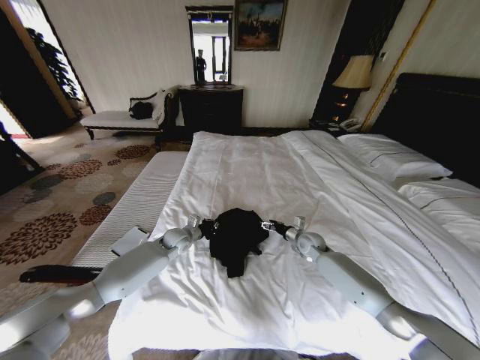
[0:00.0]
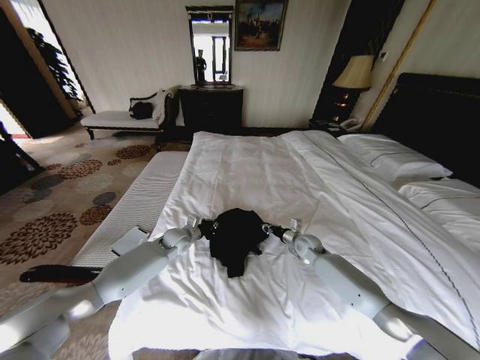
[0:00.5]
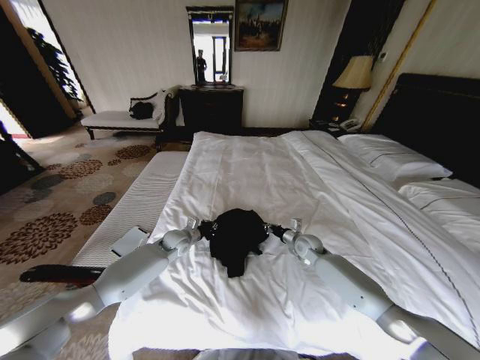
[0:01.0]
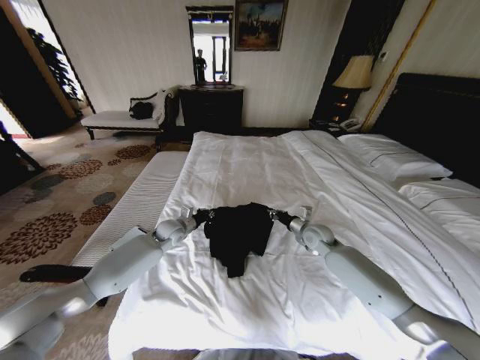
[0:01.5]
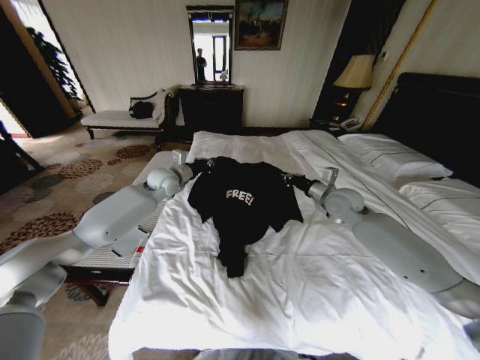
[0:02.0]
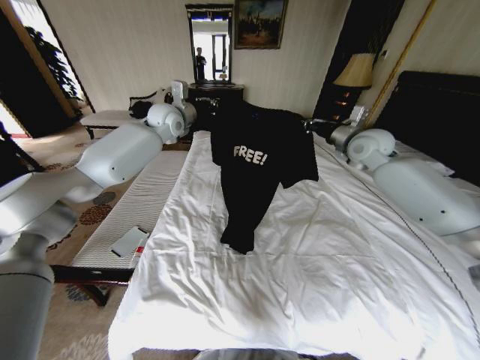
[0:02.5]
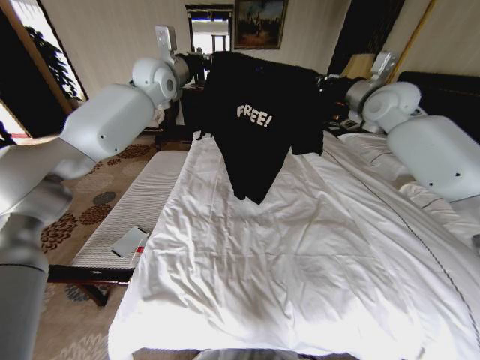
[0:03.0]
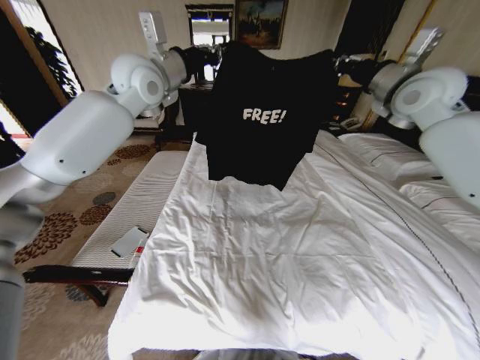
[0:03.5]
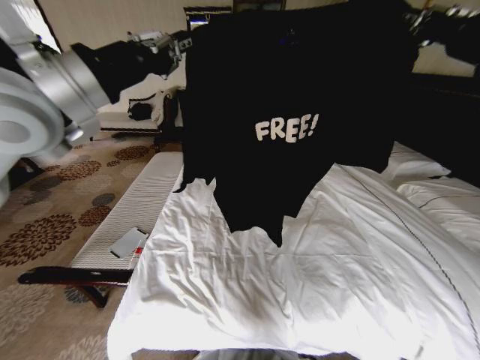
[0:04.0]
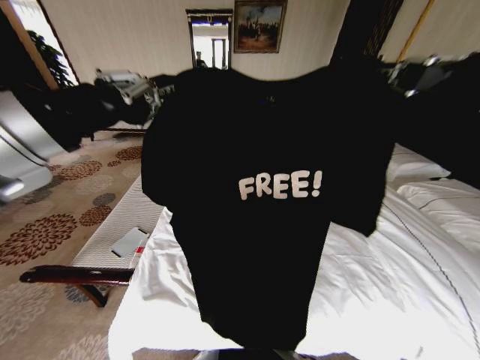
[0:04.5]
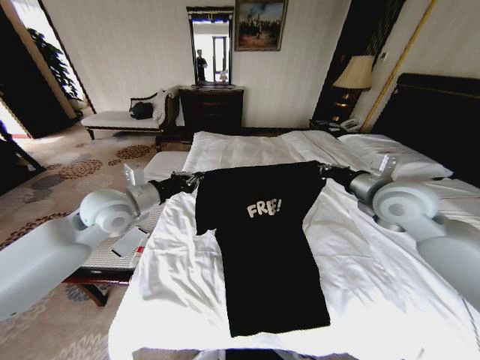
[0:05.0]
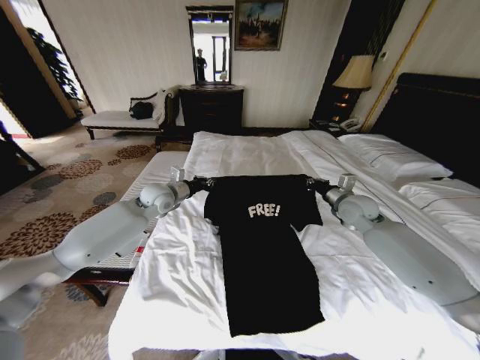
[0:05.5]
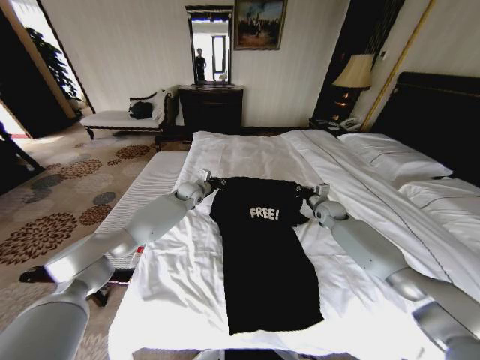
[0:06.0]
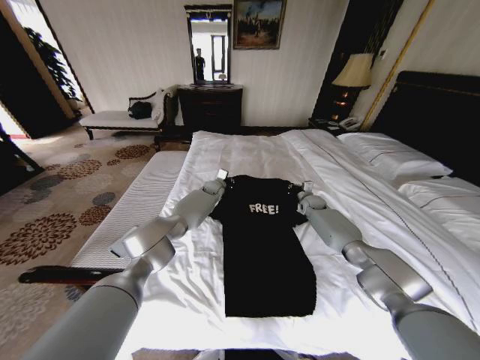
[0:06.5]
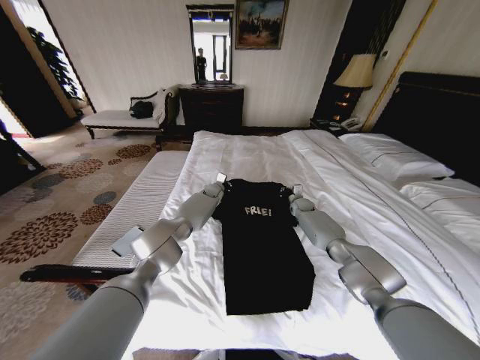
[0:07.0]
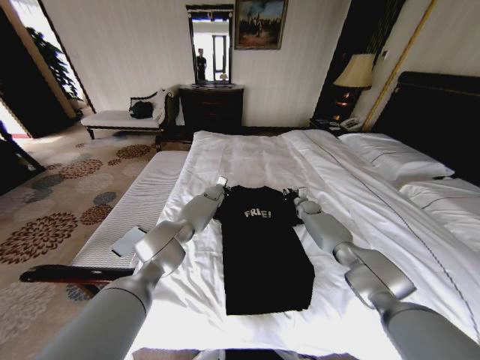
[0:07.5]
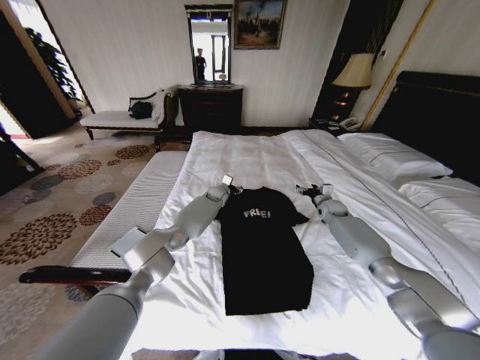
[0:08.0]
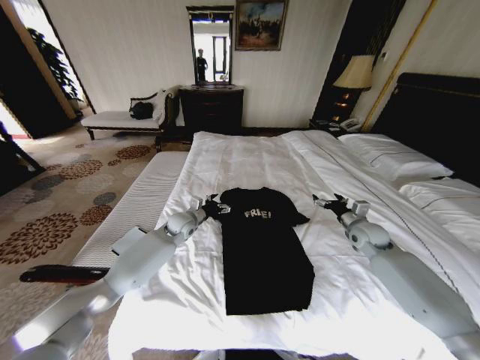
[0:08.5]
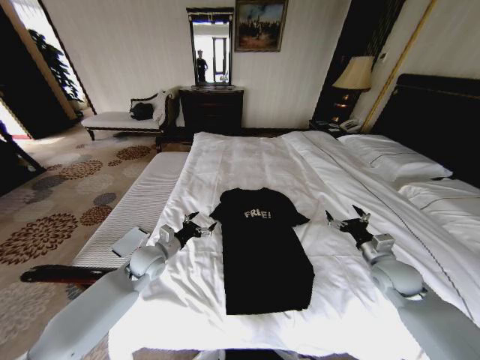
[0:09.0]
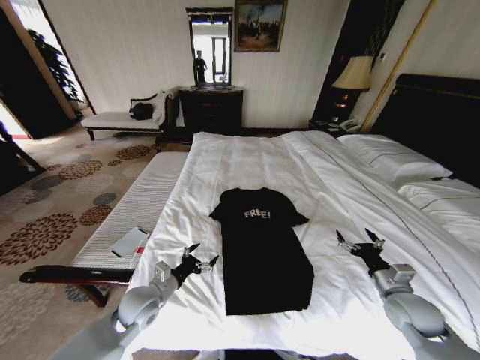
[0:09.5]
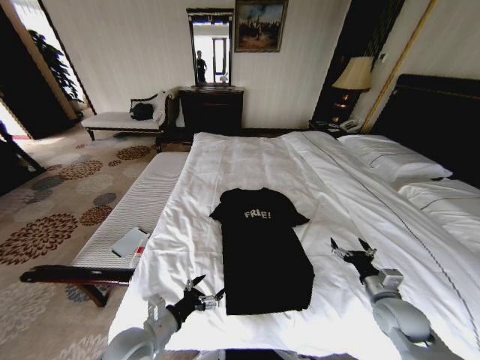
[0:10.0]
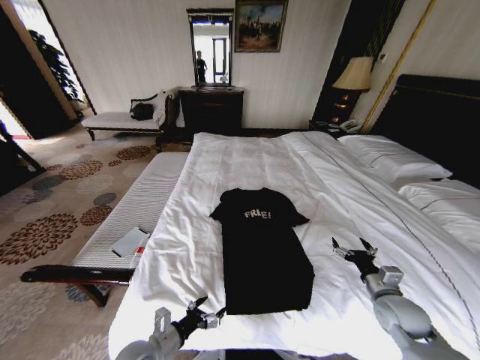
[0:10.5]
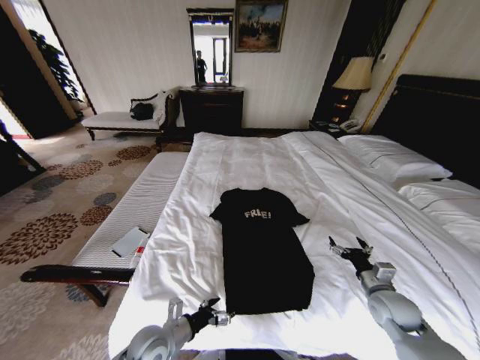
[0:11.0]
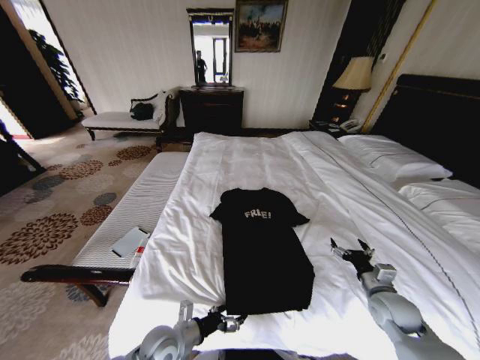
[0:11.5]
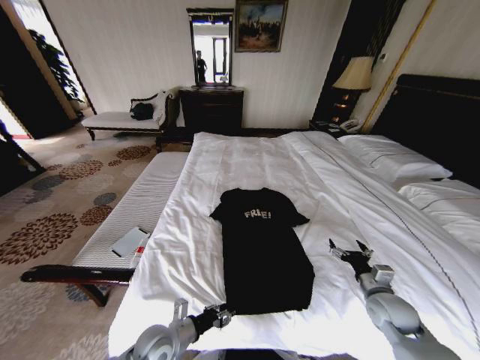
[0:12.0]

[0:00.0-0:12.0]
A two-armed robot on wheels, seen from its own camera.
Task of the whole recording: Fold the clothes on the bed.
0:00.0 to 0:02.0: The left gripper goes approximately 20 cm upward and forward. Meanwhile the right gripper travels upward by about 20 cm, and closes.
0:02.0 to 0:04.0: The grippers both shift upward and backward by about 35 cm.
0:04.0 to 0:06.0: Both grippers travel together downward and forward, roughly 40 cm.
0:06.0 to 0:08.0: The left gripper moves to the right and downward, some 10 cm, and opens up, while the right gripper opens up.
0:08.0 to 0:10.0: Both grippers travel together backward, approximately 40 cm.
0:10.0 to 0:12.0: The left gripper heads downward, covering roughly 5 cm, and closes up.

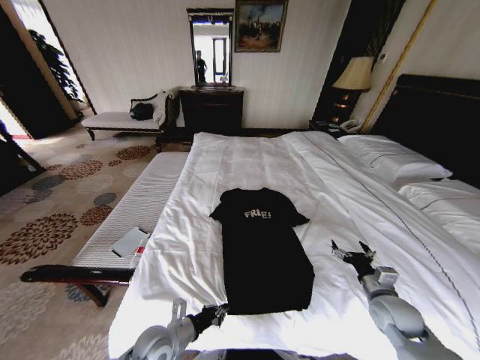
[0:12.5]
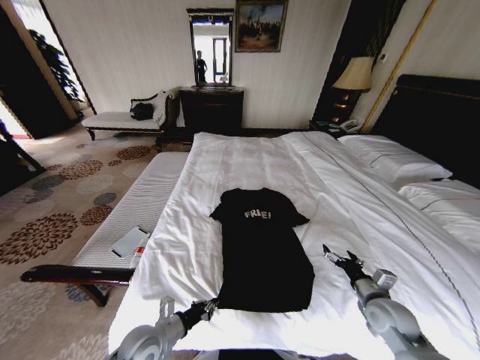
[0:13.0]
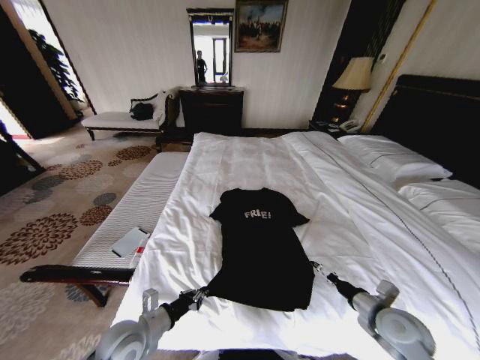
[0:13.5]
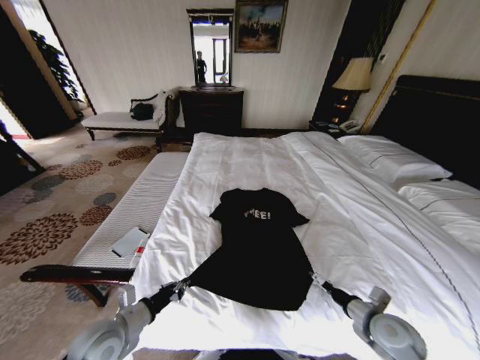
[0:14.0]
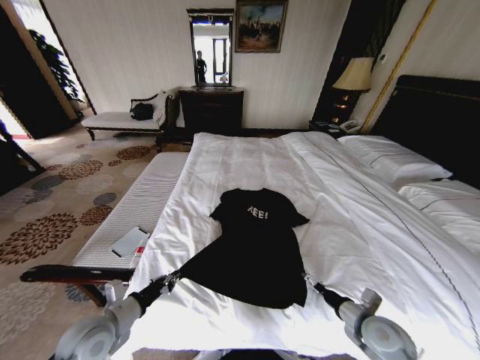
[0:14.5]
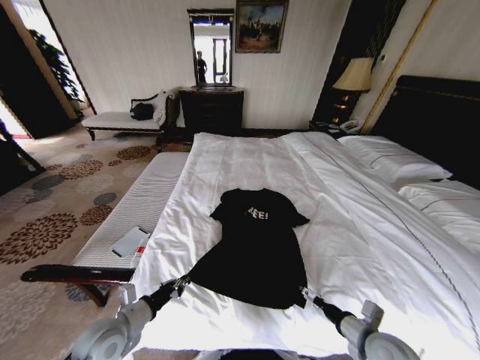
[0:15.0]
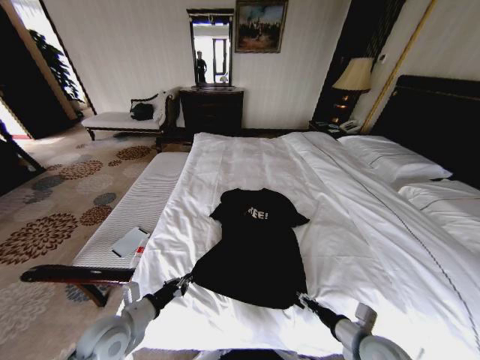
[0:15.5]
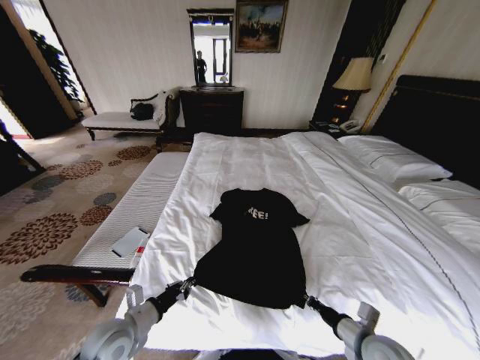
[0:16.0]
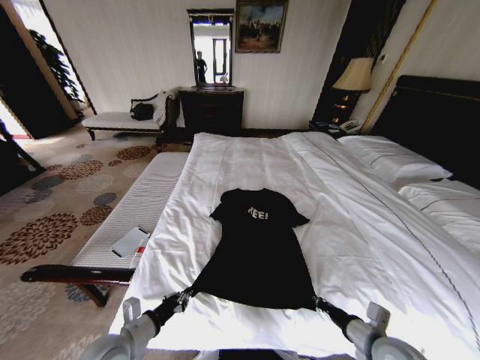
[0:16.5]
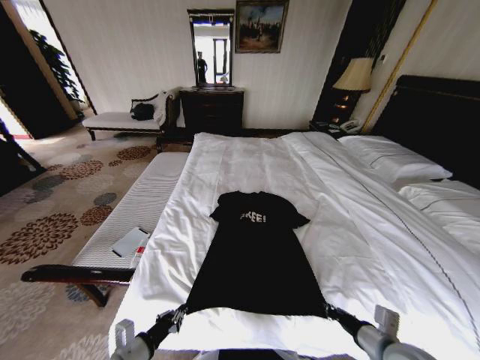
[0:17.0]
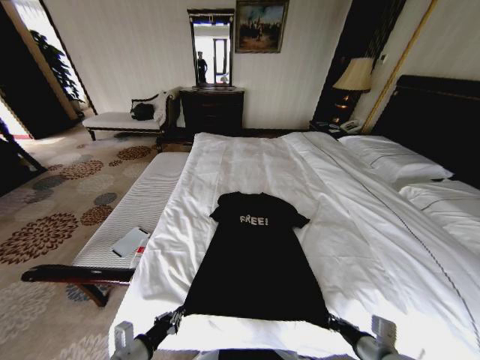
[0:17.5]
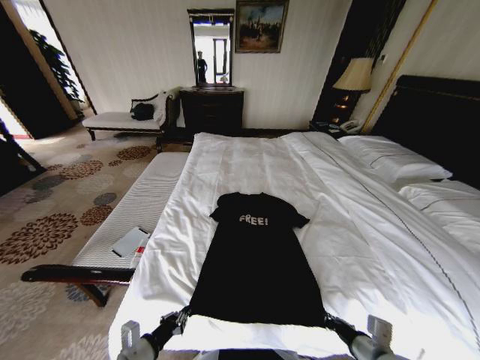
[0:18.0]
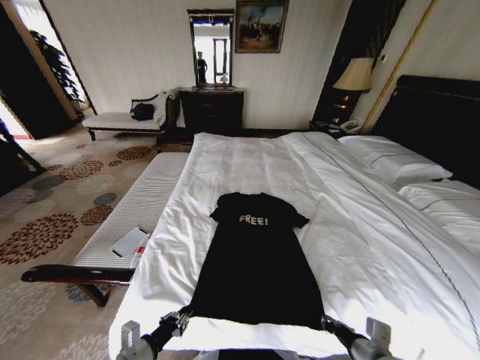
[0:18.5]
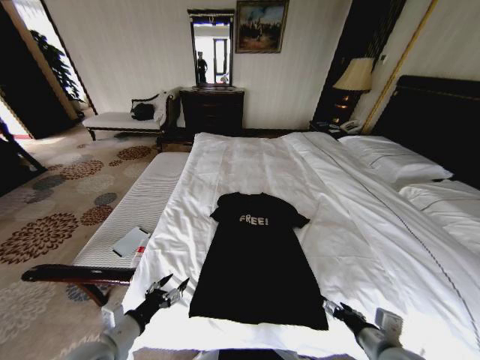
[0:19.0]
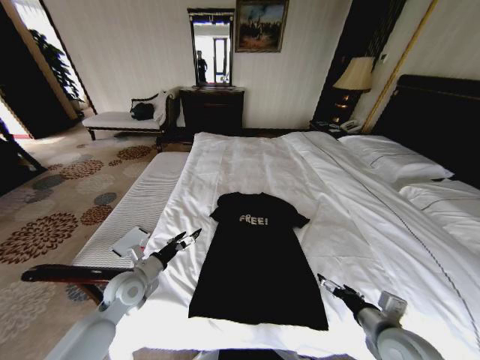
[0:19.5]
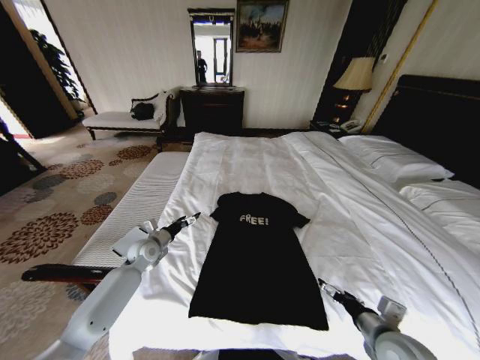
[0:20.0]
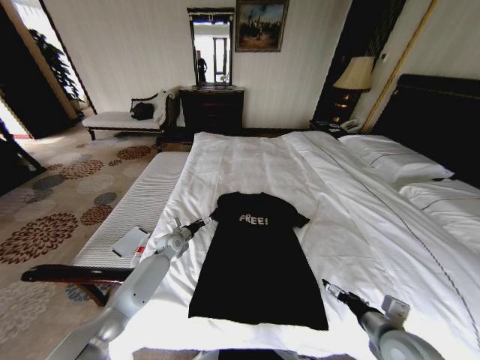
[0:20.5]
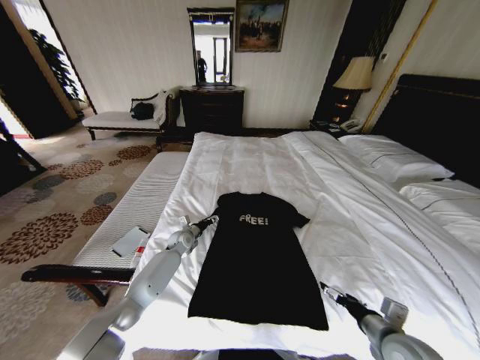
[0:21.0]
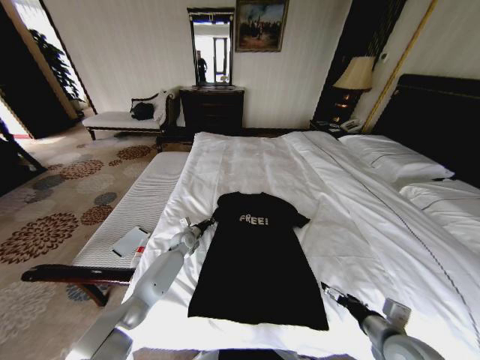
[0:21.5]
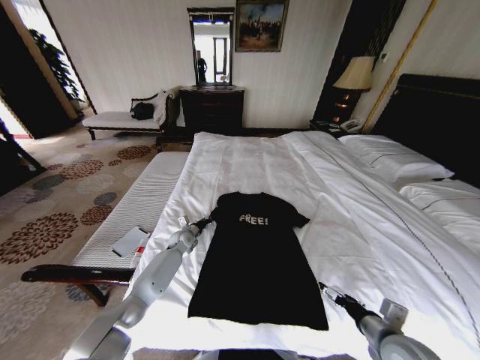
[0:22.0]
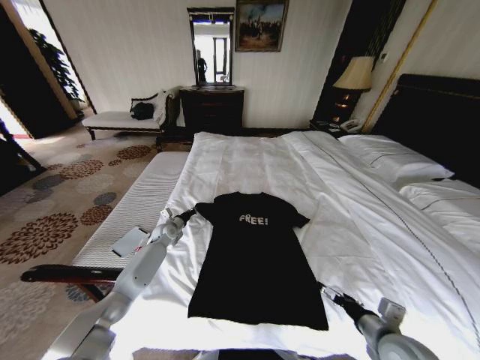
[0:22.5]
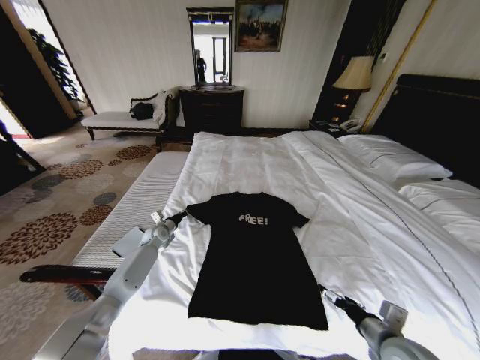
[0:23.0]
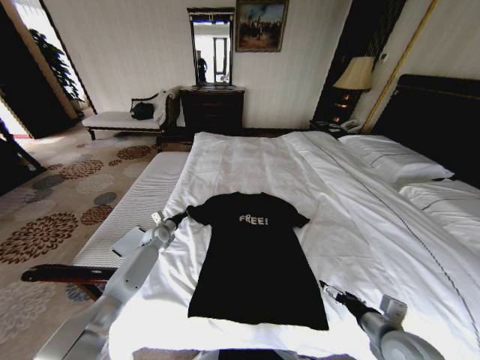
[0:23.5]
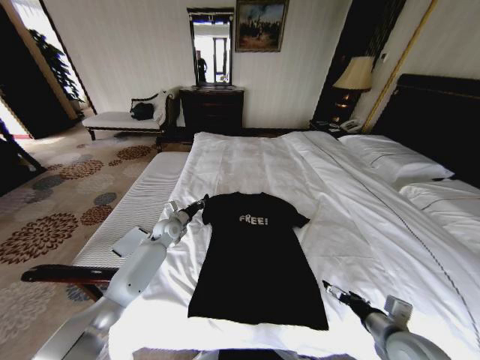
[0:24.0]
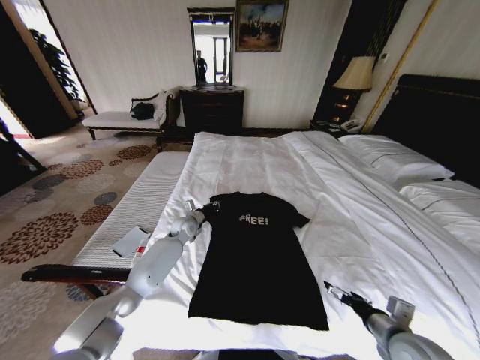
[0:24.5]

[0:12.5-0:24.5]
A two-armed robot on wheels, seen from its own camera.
Task of the whole recording: Fold the clothes on the bed.
0:12.5 to 0:14.5: The right gripper goes approximately 10 cm to the left and backward. Meanwhile the left gripper shifts some 15 cm to the left and upward.
0:14.5 to 0:16.5: The left gripper changes place by about 5 cm, while the right gripper shifts by some 5 cm, and closes up.
0:16.5 to 0:18.5: The left gripper moves backward, approximately 5 cm.
0:18.5 to 0:20.5: The right gripper shifts by roughly 5 cm, and opens its fingers. The left gripper shifts roughly 35 cm forward, and opens its fingers.
0:20.5 to 0:22.5: The left gripper changes place by about 5 cm, and closes up.
0:22.5 to 0:24.5: The left gripper travels to the right by some 10 cm.

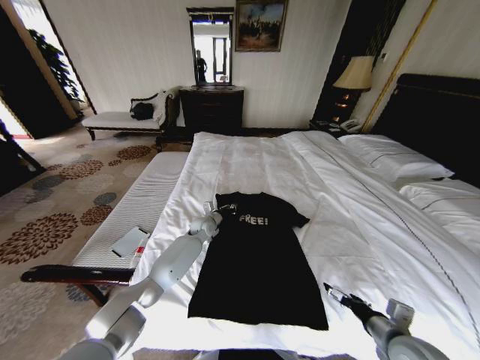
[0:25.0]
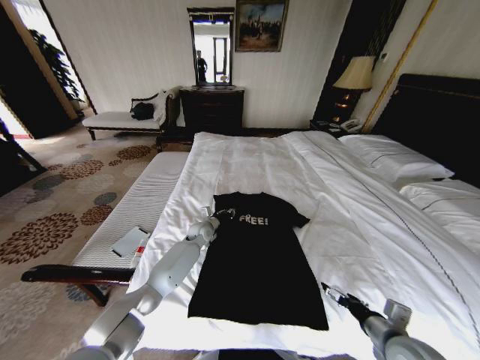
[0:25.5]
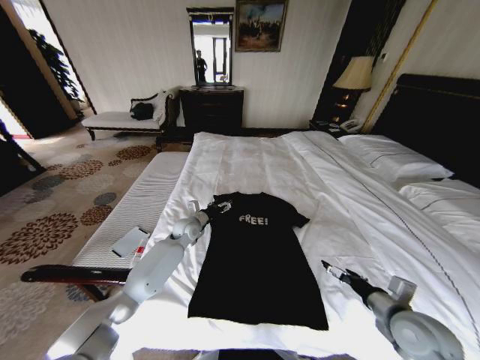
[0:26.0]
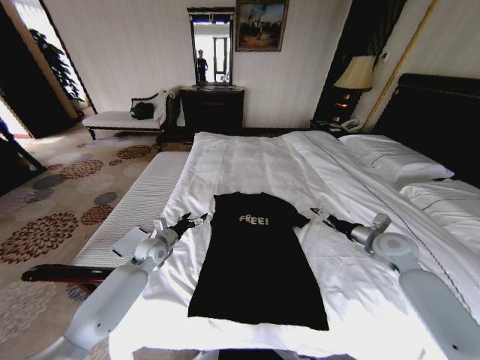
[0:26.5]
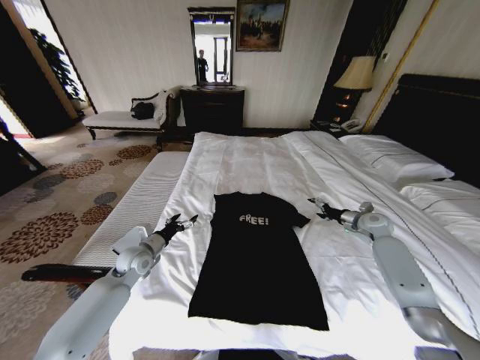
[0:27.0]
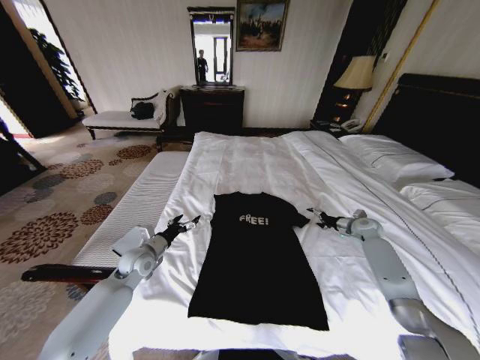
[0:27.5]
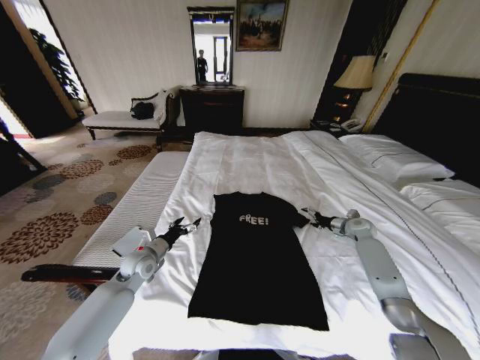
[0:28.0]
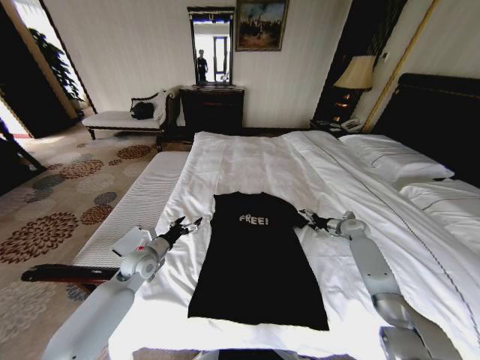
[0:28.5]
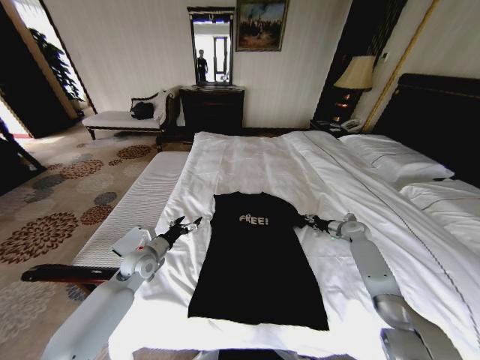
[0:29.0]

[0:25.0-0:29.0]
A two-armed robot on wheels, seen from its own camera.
Task of the whole recording: Fold the clothes on the bed.
0:25.0 to 0:27.0: The left gripper goes about 25 cm to the left and backward, and opens its fingers. Meanwhile the right gripper heads forward, covering approximately 35 cm.
0:27.0 to 0:29.0: The right gripper heads downward, covering approximately 10 cm, and closes.
